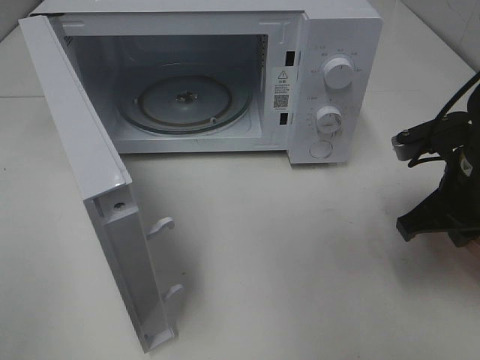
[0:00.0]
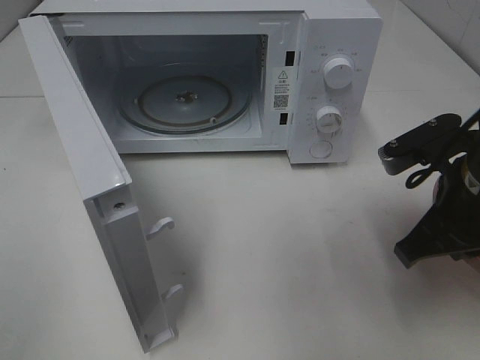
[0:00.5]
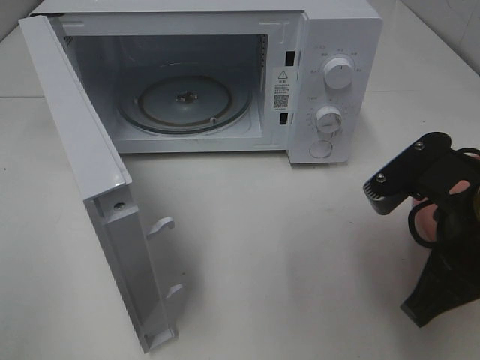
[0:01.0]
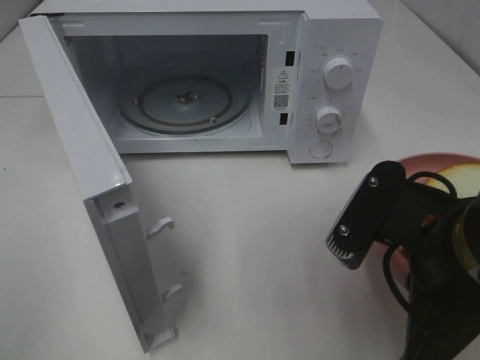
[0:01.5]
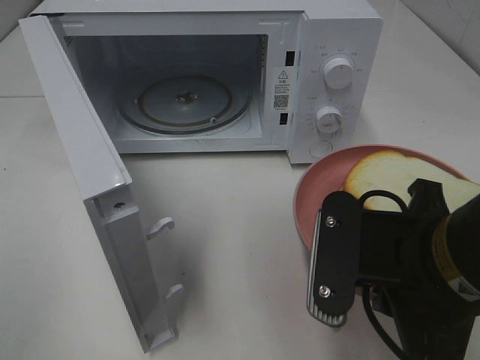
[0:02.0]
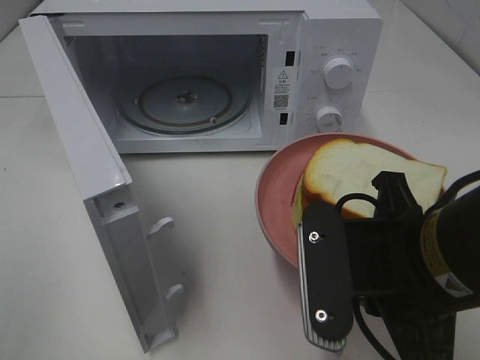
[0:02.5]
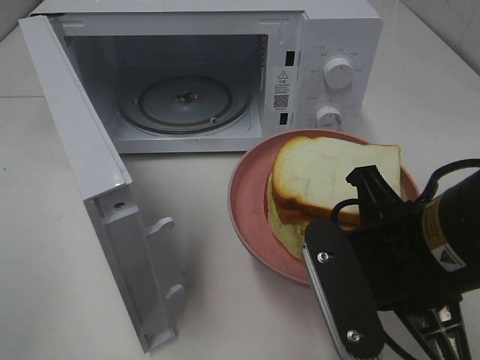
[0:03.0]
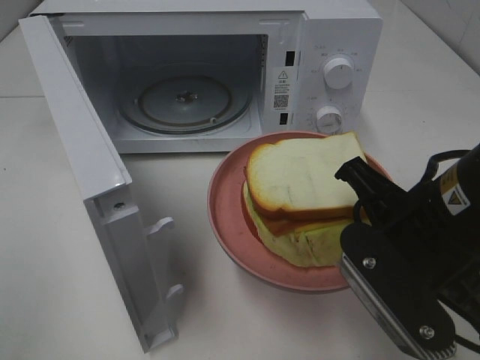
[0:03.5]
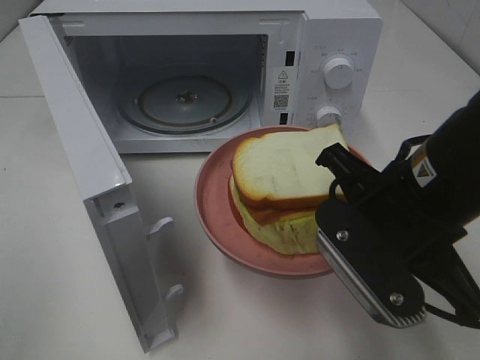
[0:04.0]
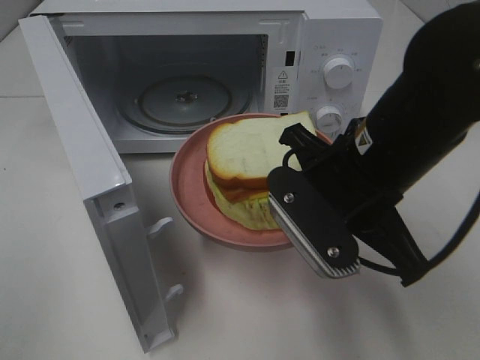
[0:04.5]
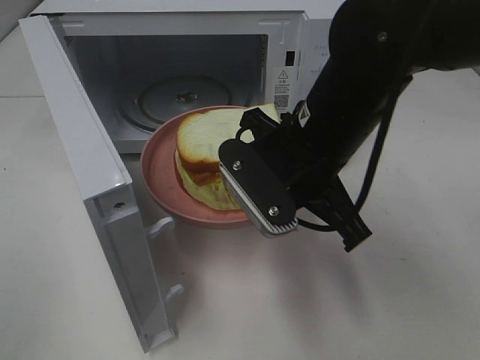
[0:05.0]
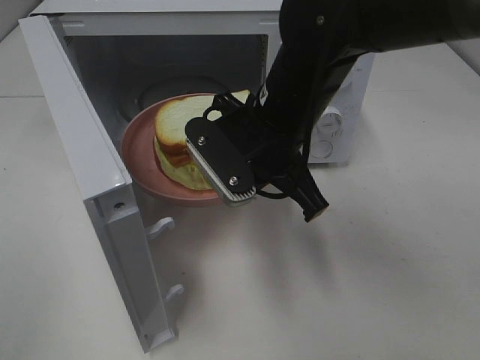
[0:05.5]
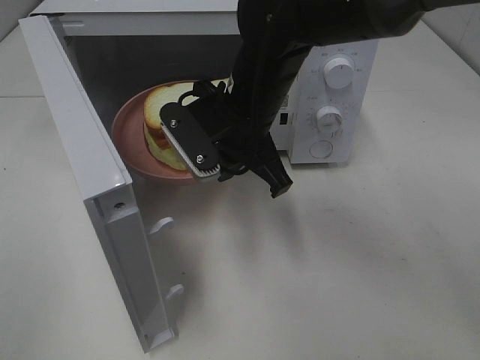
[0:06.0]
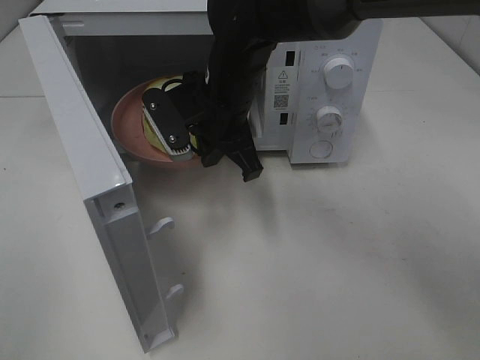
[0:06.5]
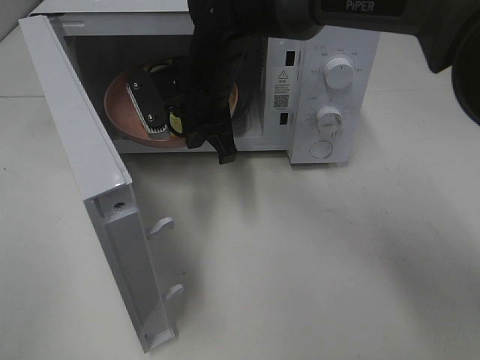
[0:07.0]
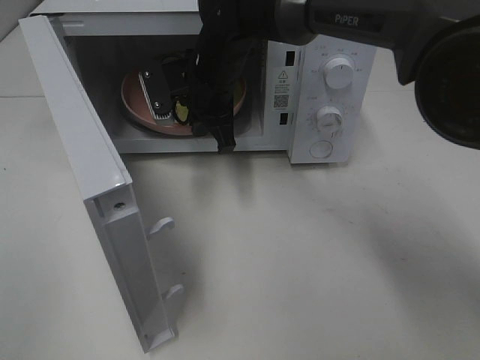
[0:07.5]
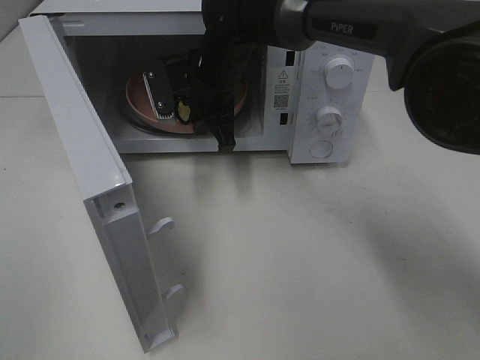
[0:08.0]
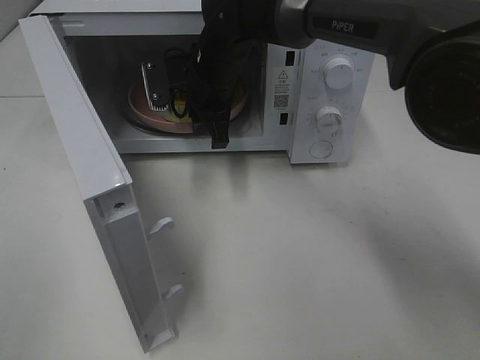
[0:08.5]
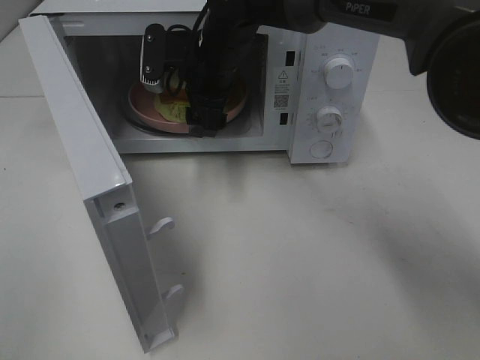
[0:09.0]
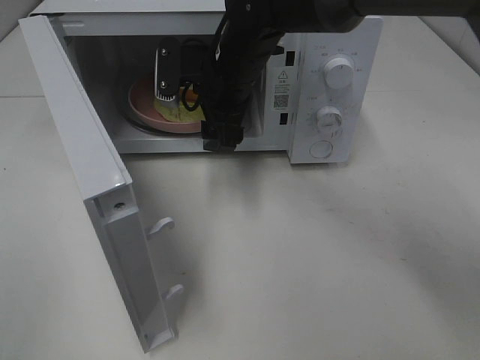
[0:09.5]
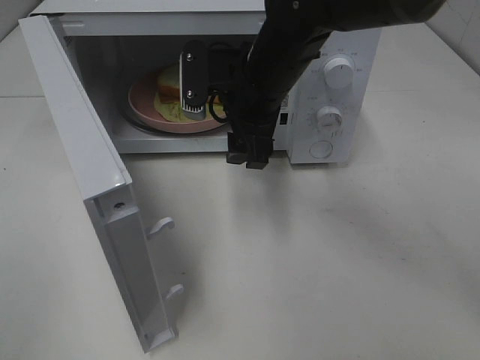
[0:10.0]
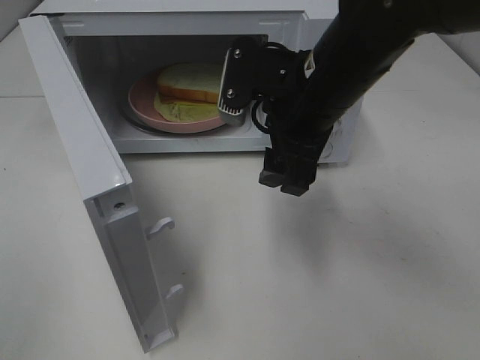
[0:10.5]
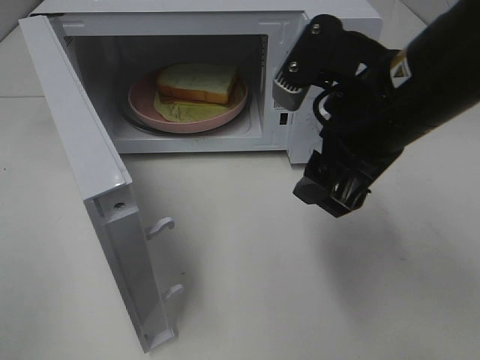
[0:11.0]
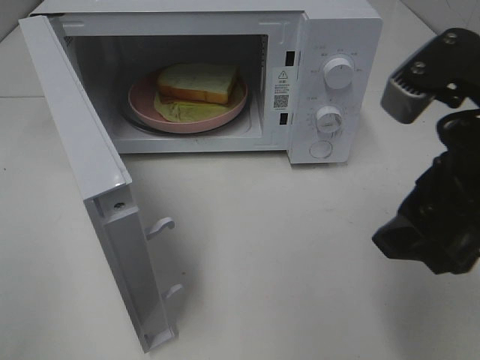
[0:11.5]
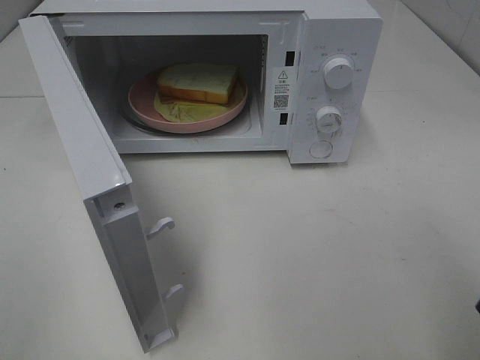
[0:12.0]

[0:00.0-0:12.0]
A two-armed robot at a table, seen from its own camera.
Task of the whole recording: Heat Sandwich.
Step, 0:00.0 to 0:09.5: Right hand: place the plate in the microwave.
0:00.0 to 0:02.0: The right gripper travels backward and to the left by some 15 cm.
0:02.0 to 0:04.0: The right gripper is displaced forward by about 5 cm.
0:04.0 to 0:06.0: The right gripper is displaced forward and to the left by approximately 20 cm.
0:06.0 to 0:08.0: The right gripper moves forward, some 10 cm.
0:08.0 to 0:10.0: The right gripper moves backward and to the right, some 10 cm, and opens its fingers.
0:10.0 to 0:12.0: The right gripper travels backward and to the right by approximately 30 cm.

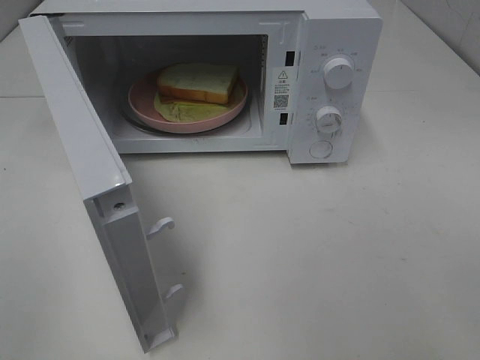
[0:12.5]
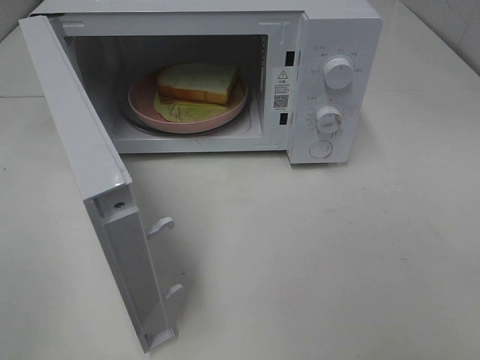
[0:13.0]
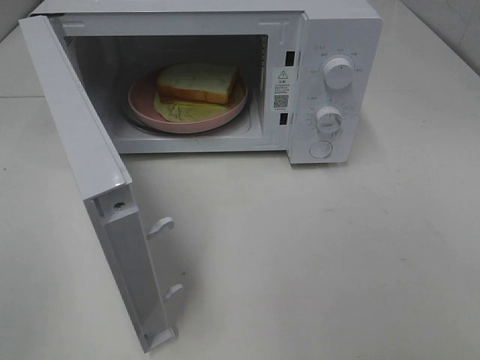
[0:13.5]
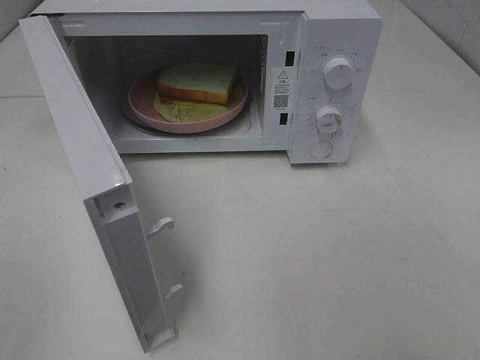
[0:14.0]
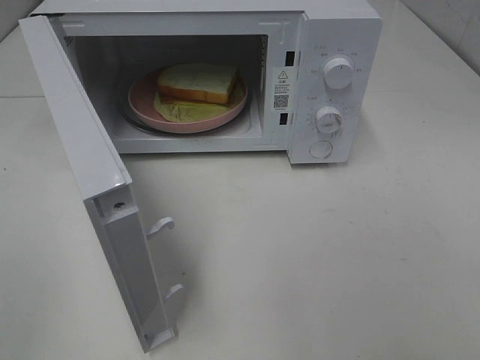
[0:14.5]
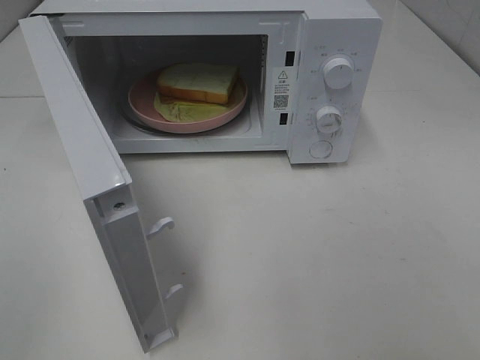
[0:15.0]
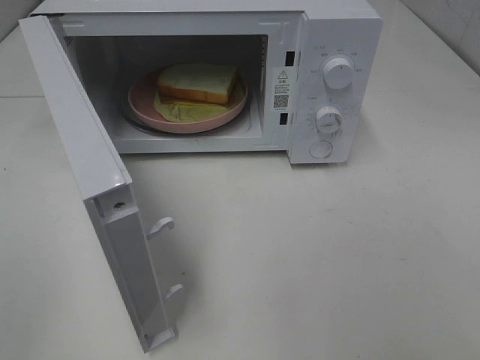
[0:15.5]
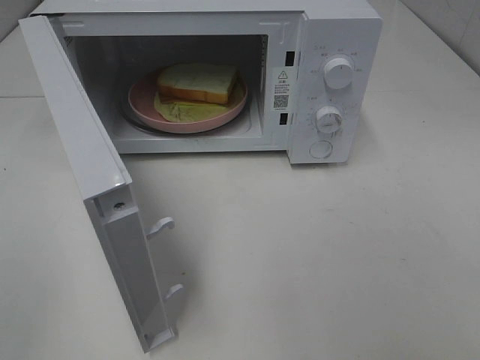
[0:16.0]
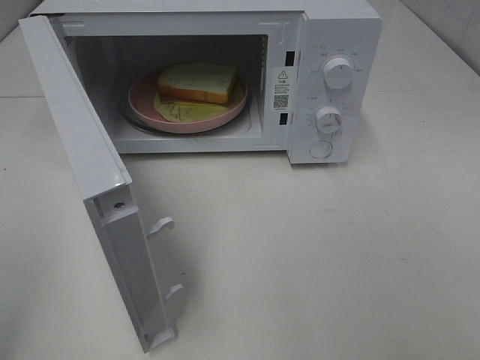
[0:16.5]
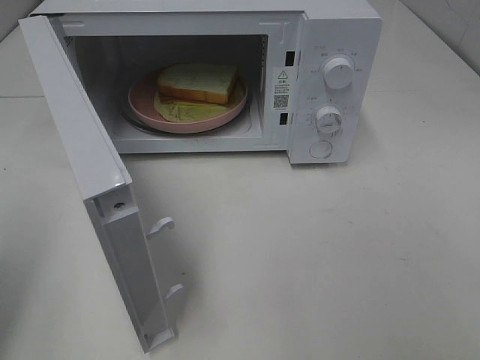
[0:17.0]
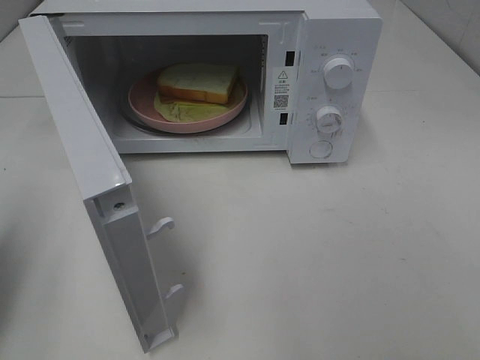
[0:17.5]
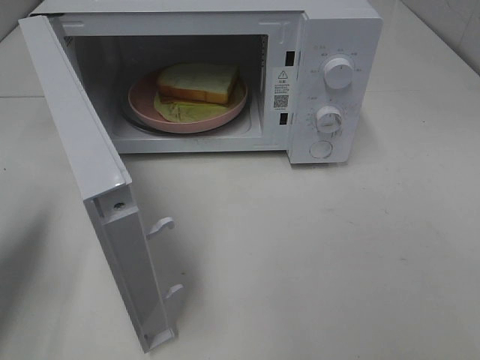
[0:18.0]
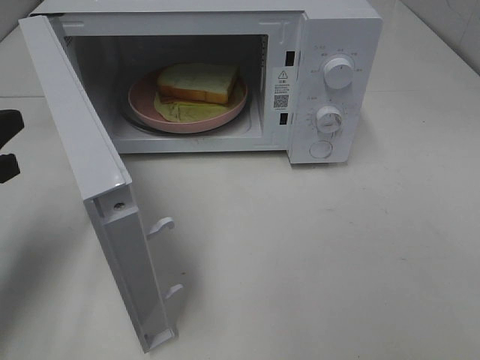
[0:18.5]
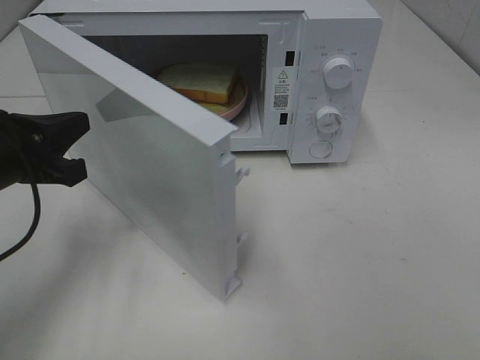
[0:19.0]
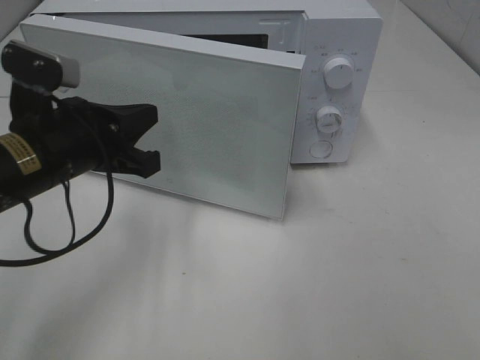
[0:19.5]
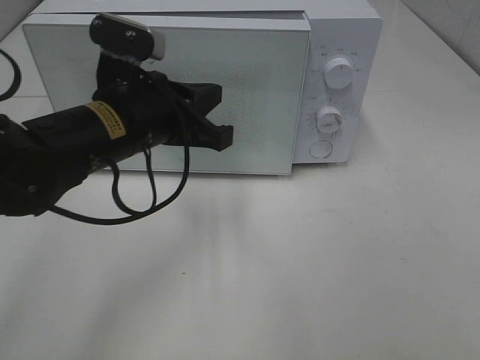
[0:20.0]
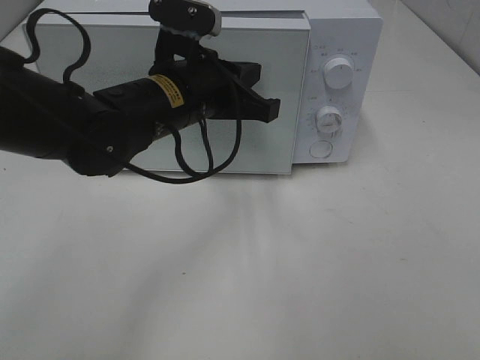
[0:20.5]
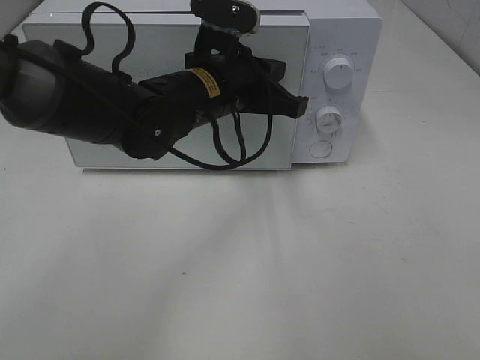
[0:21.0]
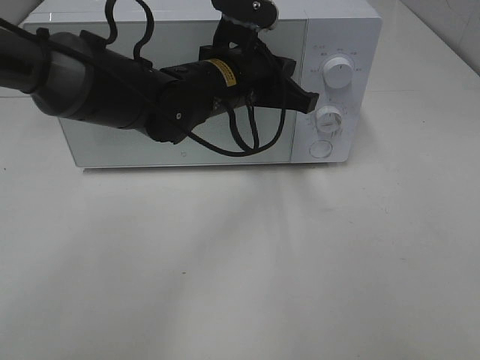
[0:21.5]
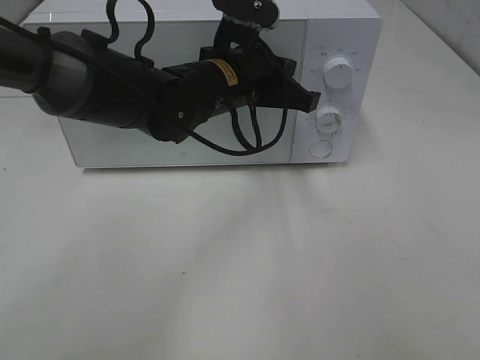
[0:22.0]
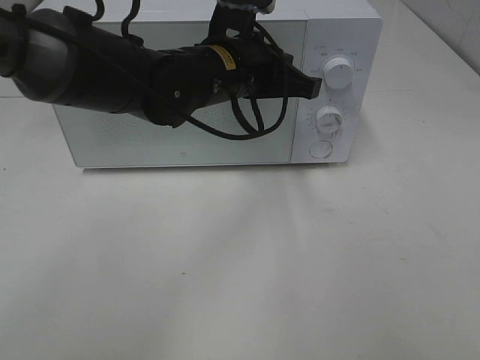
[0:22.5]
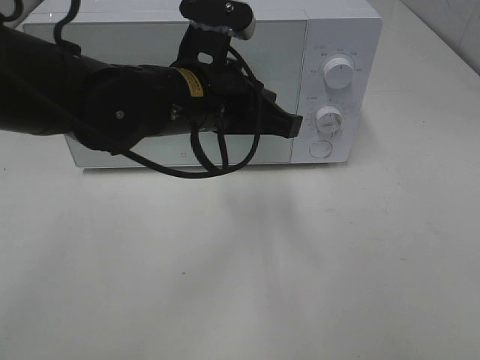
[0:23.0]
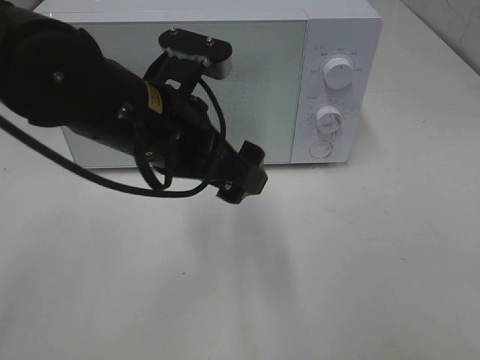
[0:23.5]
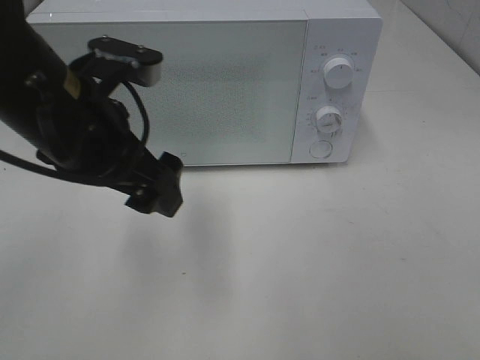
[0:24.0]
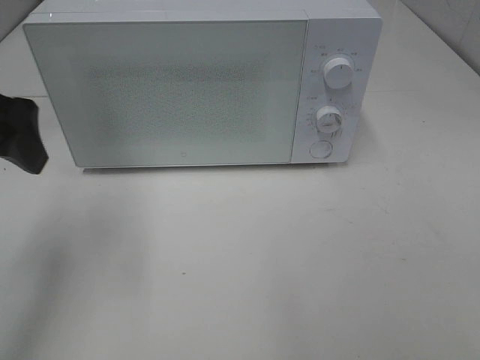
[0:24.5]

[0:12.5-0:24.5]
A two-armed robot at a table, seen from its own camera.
Task of the whole recording: Heat Sandwich.
Step, 0:12.5 to 0:22.0: Left hand: close the microwave door.
0:16.5 to 0:18.5: The left gripper moves forward and downward, some 20 cm, and closes its fingers.
0:18.5 to 0:20.5: The left gripper moves to the right, approximately 25 cm.
0:20.5 to 0:22.5: The left gripper moves about 5 cm.
0:22.5 to 0:24.5: The left gripper shifts approximately 25 cm to the left, and opens its fingers.

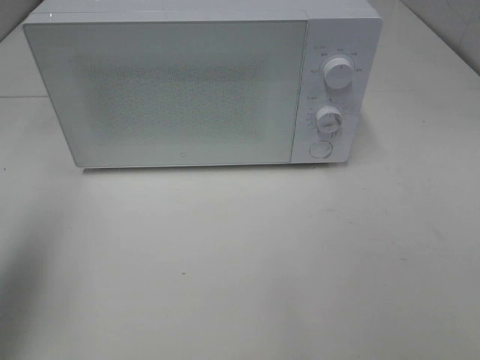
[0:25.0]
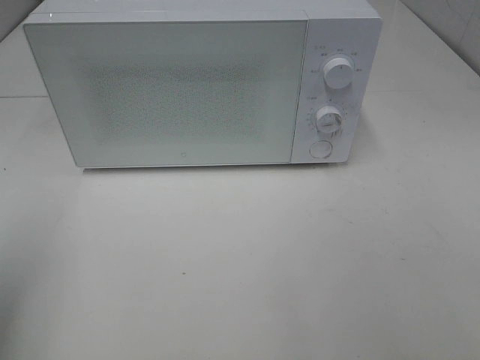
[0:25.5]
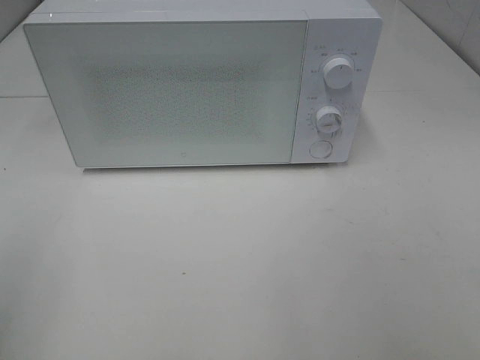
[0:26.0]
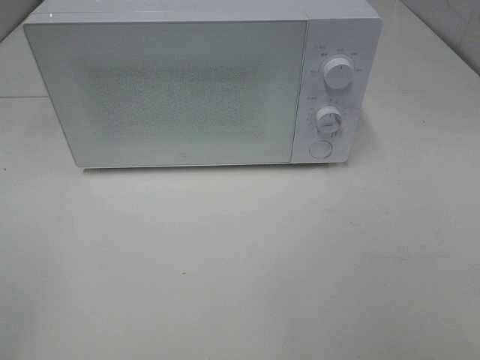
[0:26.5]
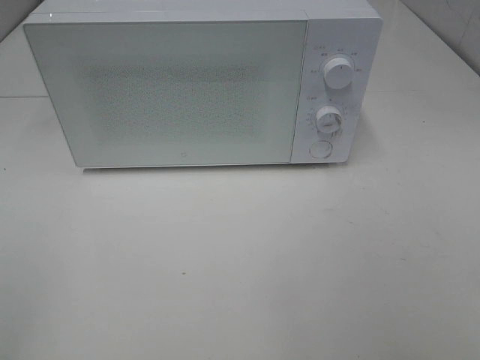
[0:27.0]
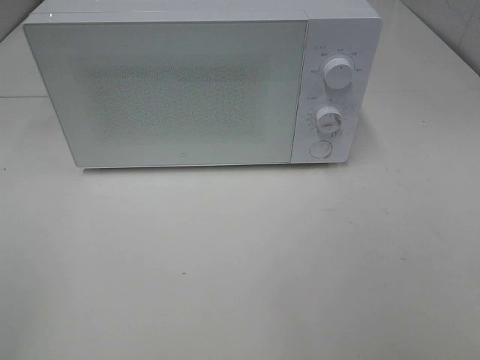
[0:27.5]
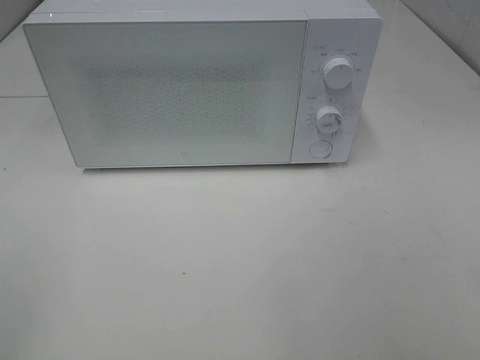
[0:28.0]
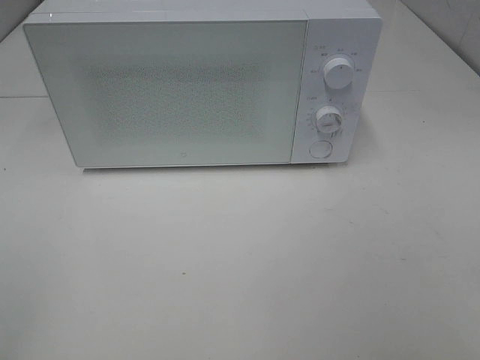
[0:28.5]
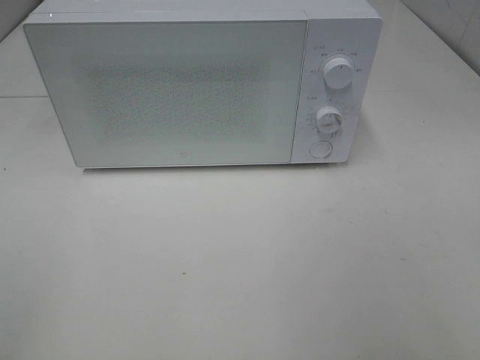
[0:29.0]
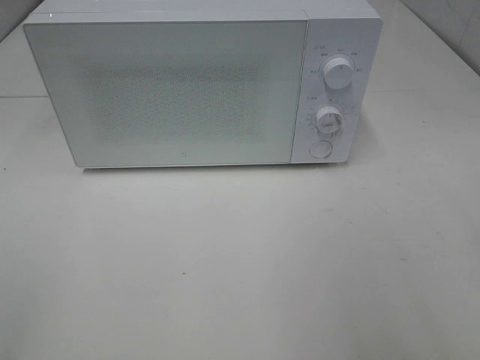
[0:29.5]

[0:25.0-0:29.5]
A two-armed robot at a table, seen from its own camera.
Task of the whole recording: Heat Sandwich.
0:25.0 to 0:27.0: The left gripper moves backward, approximately 20 cm.
